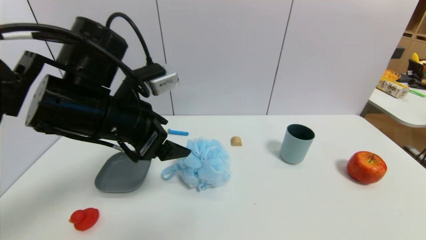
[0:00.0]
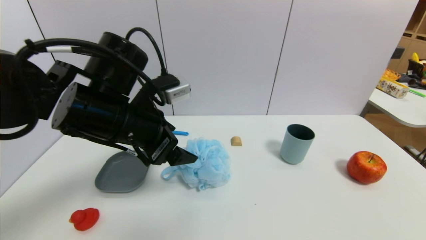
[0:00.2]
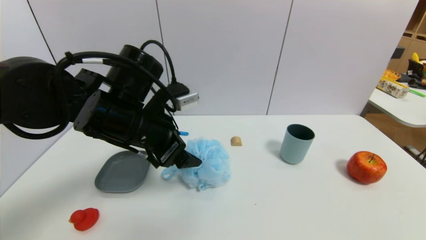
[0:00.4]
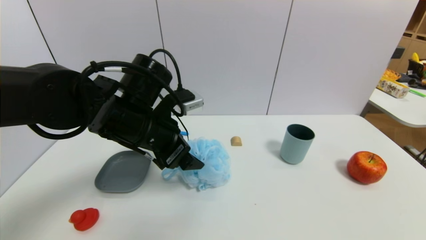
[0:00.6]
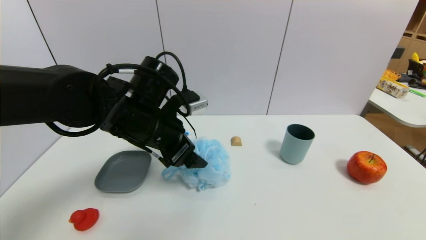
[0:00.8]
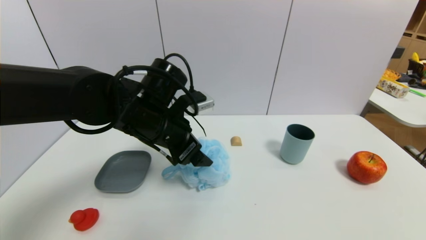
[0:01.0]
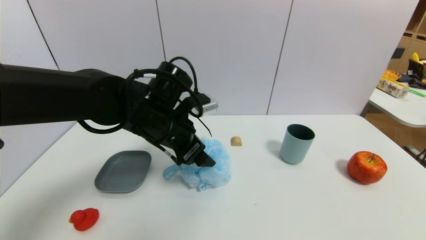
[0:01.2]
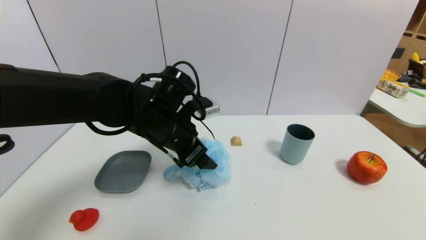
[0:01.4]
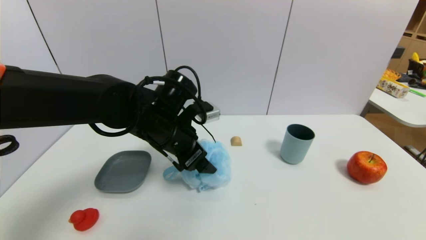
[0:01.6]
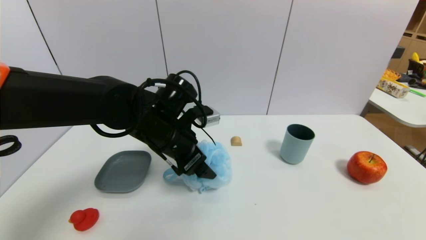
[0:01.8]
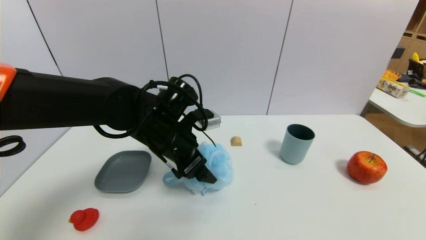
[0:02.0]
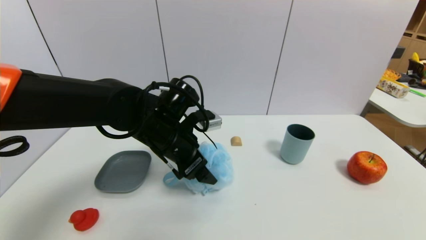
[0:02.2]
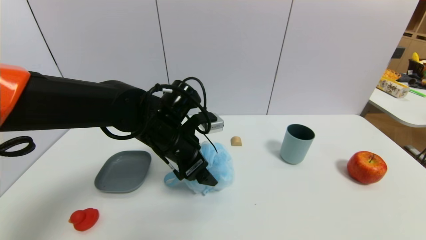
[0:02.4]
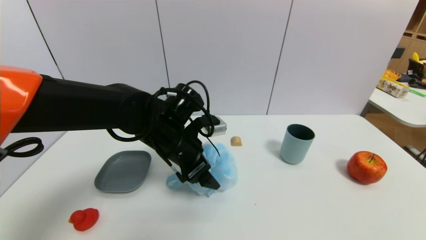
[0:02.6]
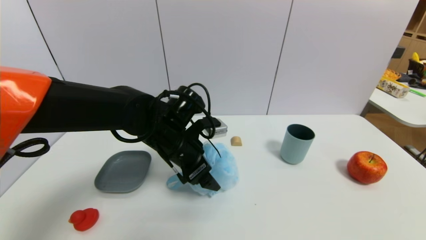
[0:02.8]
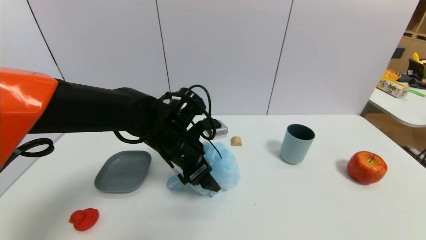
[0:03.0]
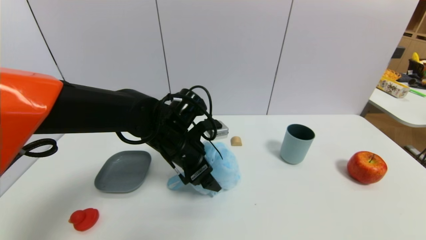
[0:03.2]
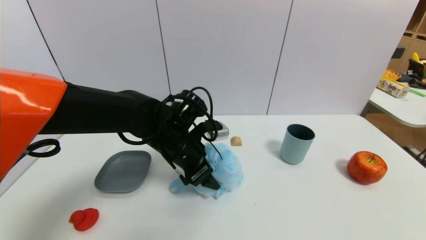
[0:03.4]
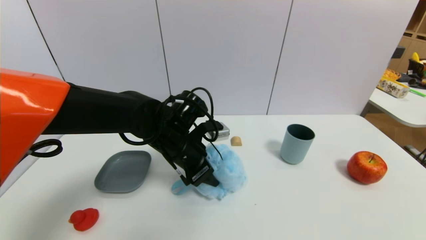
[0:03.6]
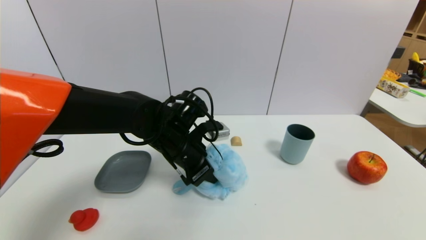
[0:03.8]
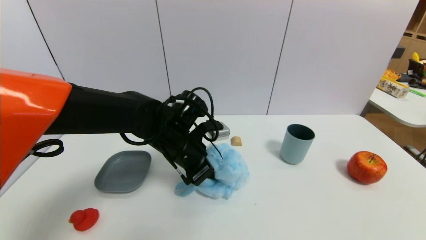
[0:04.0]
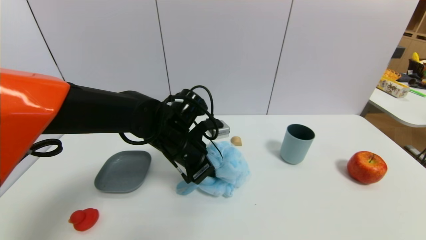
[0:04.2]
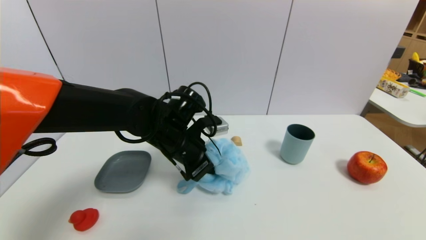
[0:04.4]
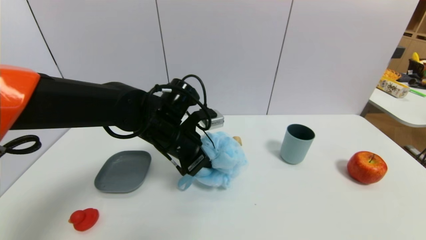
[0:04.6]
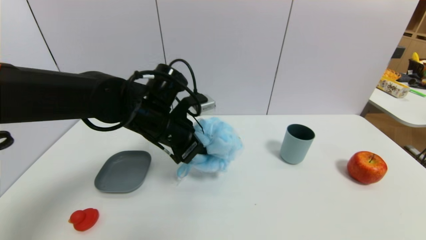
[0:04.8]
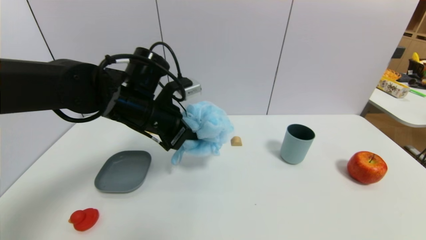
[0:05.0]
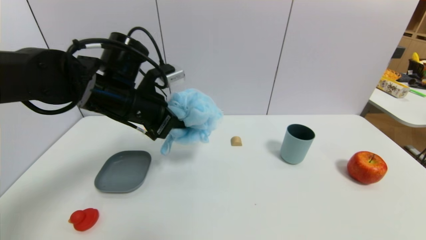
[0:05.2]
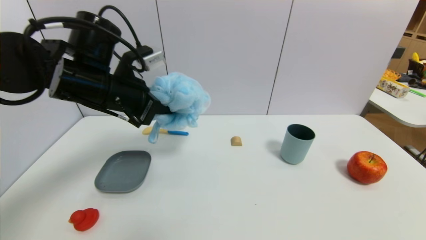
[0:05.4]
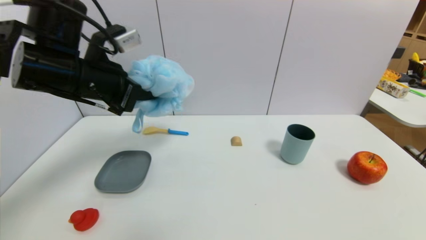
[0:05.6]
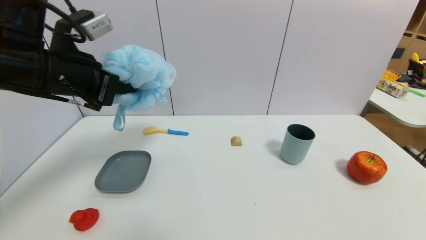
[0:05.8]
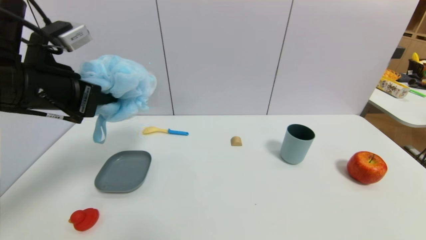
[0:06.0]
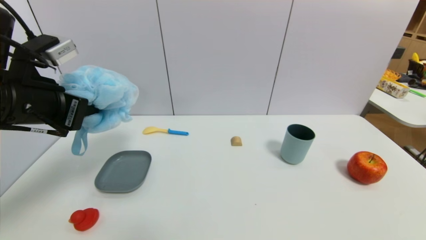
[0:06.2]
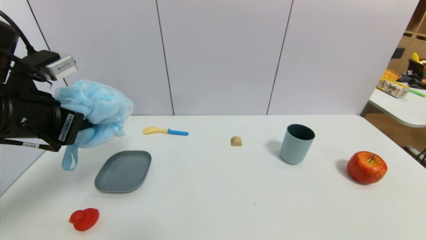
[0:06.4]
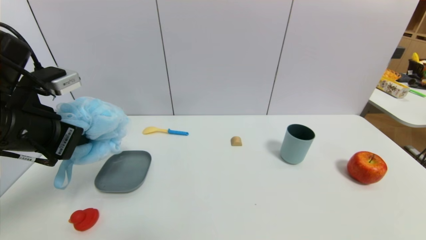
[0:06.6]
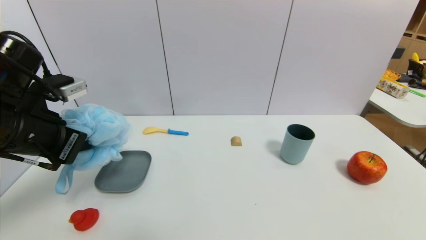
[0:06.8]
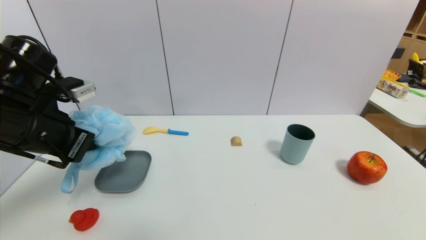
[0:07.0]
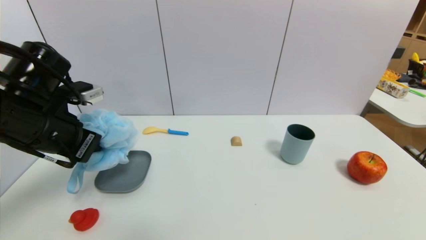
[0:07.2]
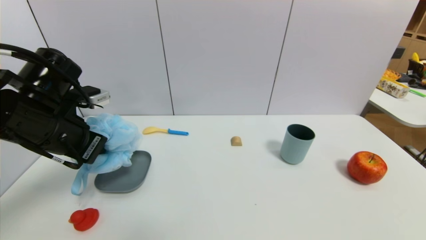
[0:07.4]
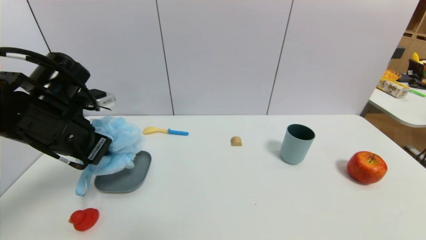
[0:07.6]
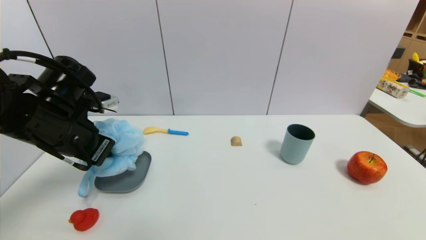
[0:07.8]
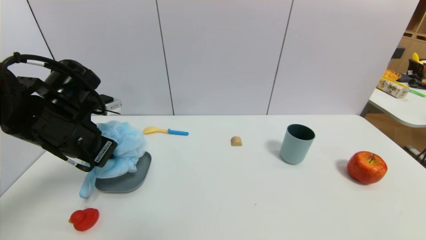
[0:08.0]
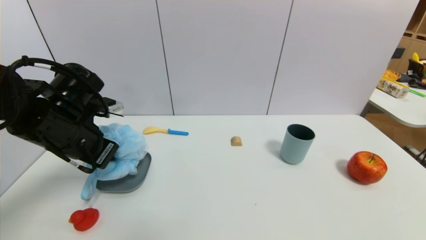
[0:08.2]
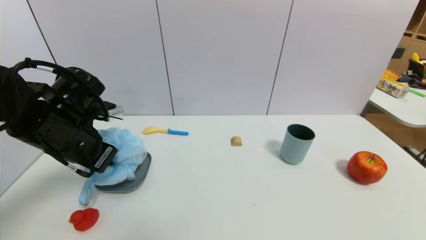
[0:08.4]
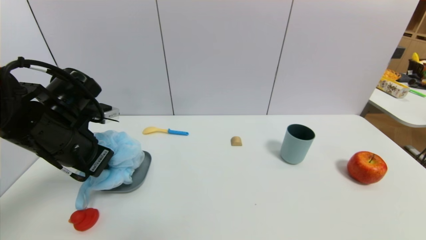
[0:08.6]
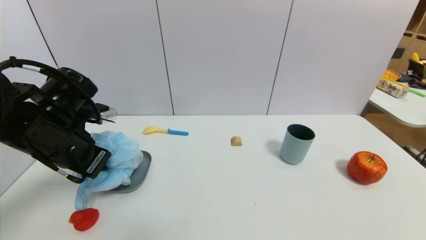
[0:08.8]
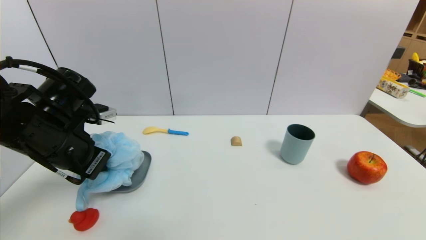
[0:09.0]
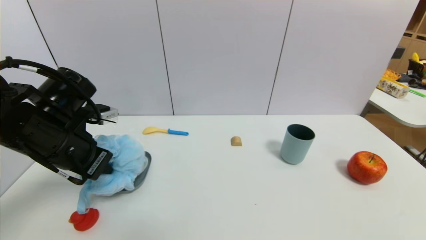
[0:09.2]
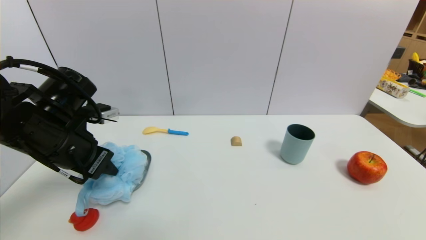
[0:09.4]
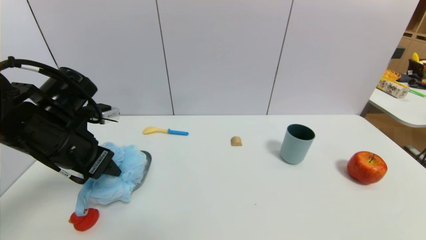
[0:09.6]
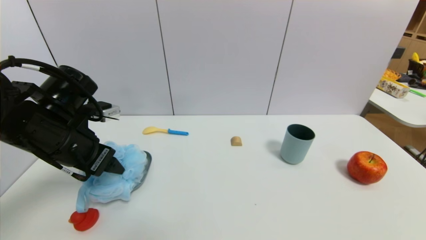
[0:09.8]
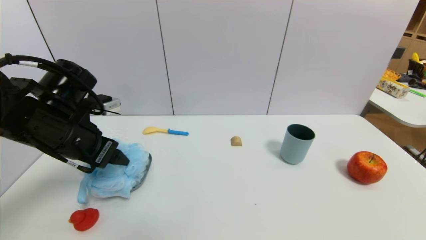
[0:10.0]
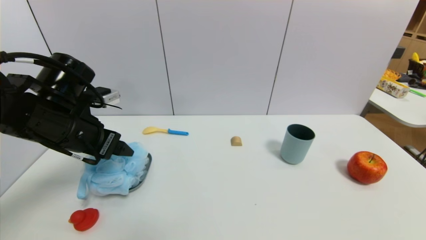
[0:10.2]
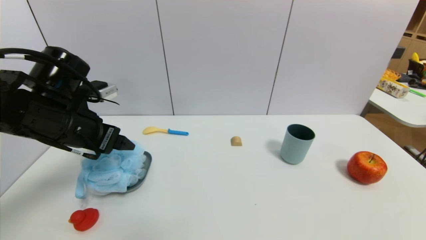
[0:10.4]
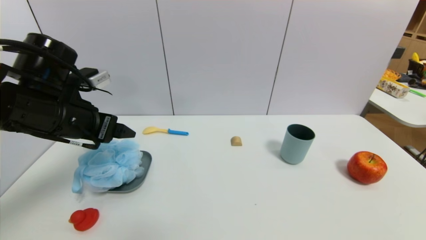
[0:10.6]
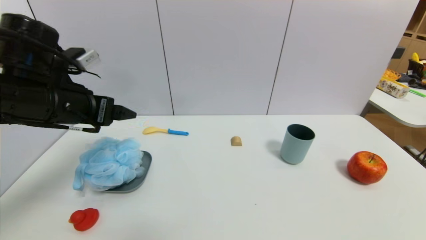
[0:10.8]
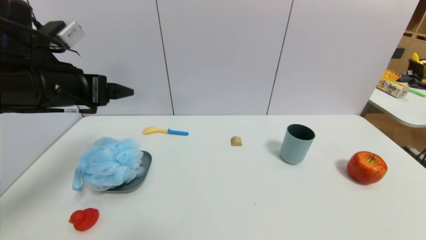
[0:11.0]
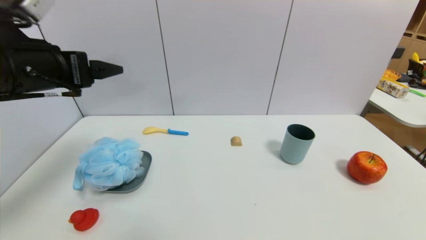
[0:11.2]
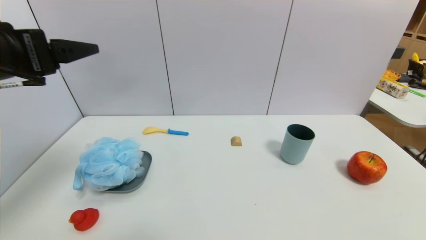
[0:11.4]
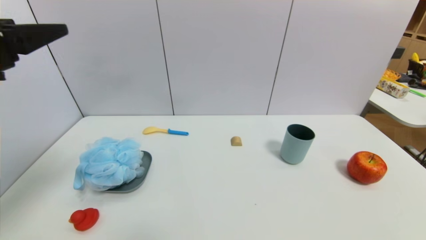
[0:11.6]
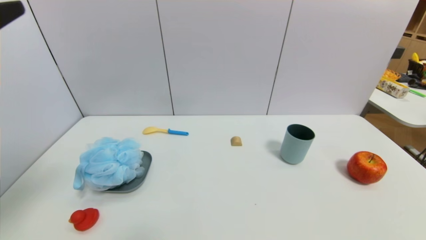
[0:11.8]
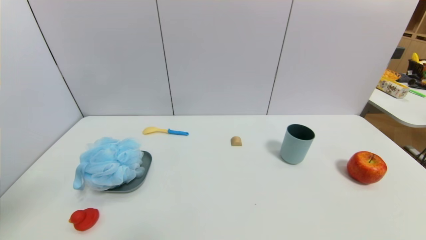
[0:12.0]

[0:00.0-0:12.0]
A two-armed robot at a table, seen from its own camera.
Task of the whole recording: use a gripper to pick the target object and place on the dish.
Step, 0:00.0 to 0:03.6: Grasp the shower sphere with the left gripper.
Step, 0:03.8 to 0:11.0: Place the shower sphere on the dish with the left gripper.
0:00.0 to 0:01.6: The left gripper goes roughly 10 cm downward, forward and to the right.
0:01.6 to 0:03.0: The grippers move only a little.
0:03.0 to 0:04.4: The left gripper closes.
0:04.4 to 0:06.0: The left gripper heads to the left, upward and backward, covering about 25 cm.
0:06.0 to 0:07.6: The left gripper is displaced downward by some 5 cm.
0:07.6 to 0:09.0: There are only small adjustments of the grippers.
0:09.0 to 0:10.4: The left gripper opens up.
0:10.4 to 0:12.0: The left gripper goes some 20 cm backward and upward.

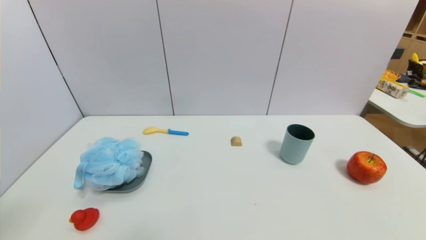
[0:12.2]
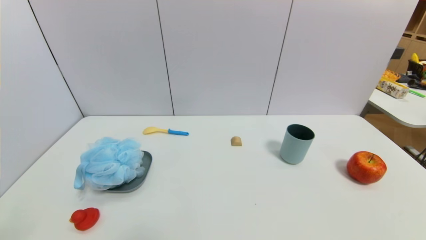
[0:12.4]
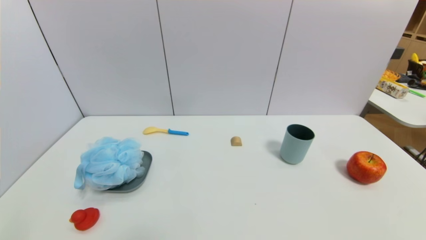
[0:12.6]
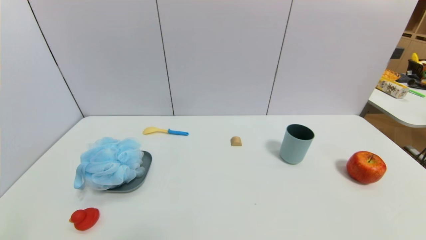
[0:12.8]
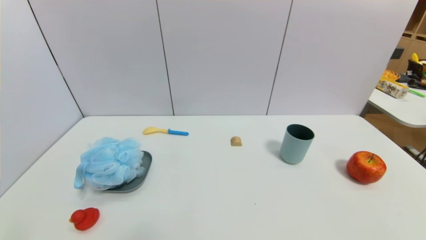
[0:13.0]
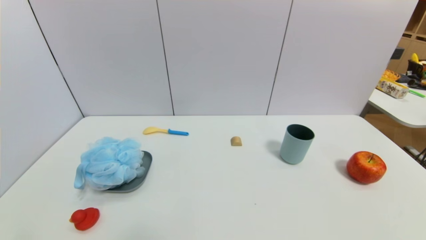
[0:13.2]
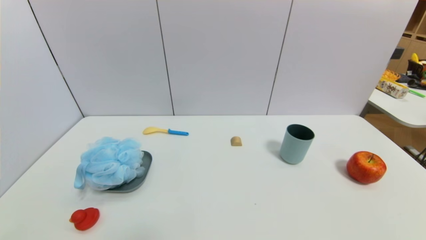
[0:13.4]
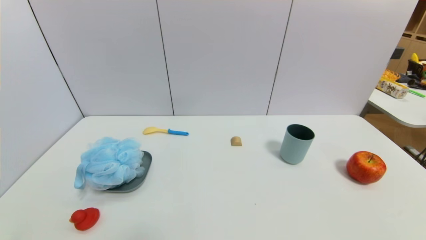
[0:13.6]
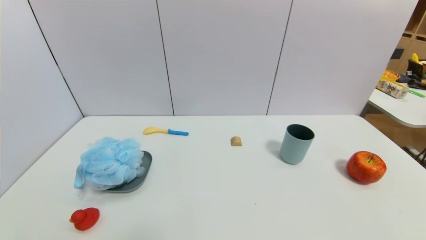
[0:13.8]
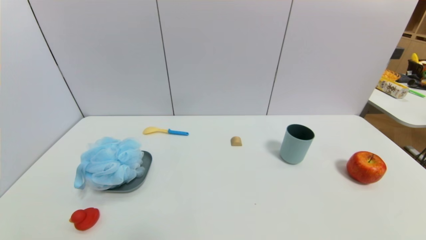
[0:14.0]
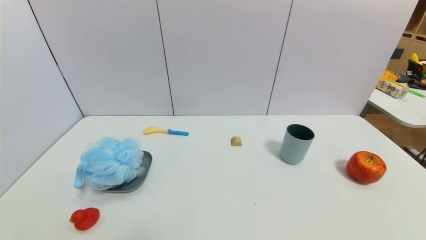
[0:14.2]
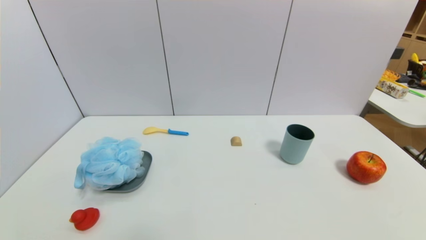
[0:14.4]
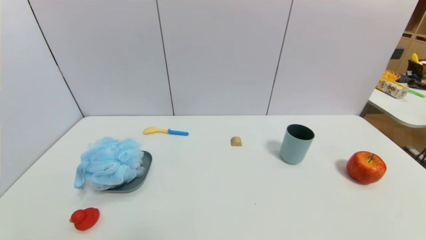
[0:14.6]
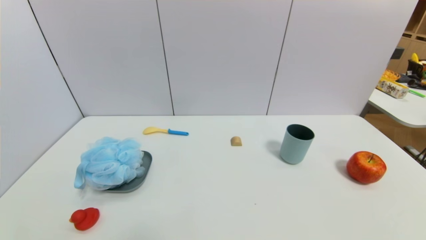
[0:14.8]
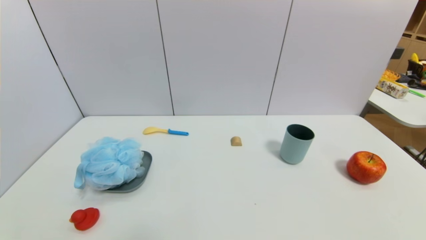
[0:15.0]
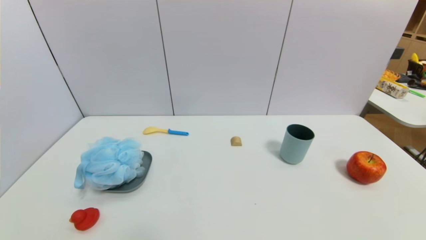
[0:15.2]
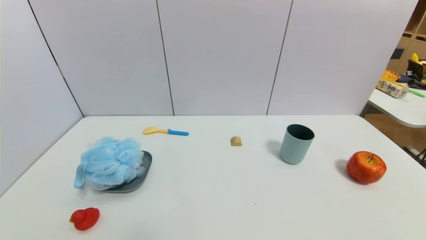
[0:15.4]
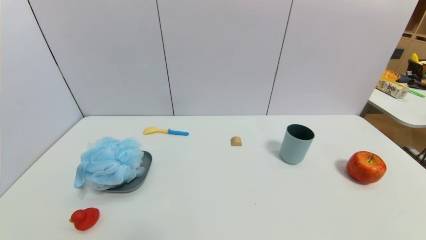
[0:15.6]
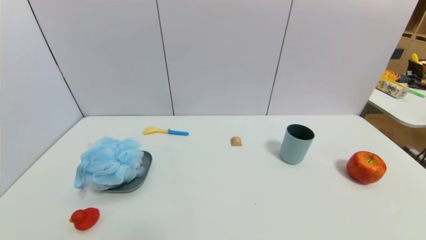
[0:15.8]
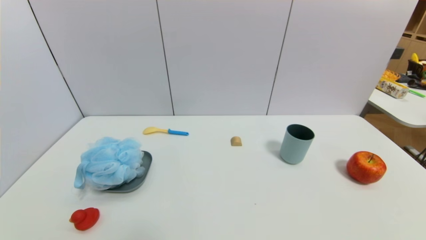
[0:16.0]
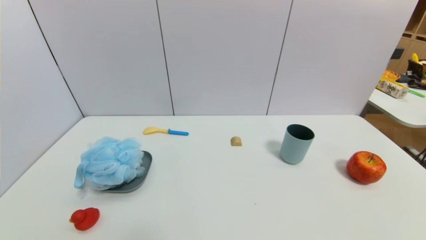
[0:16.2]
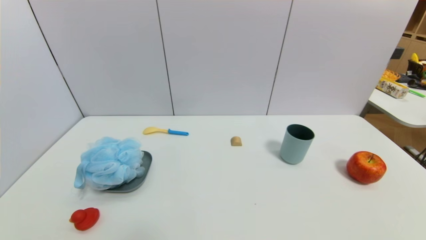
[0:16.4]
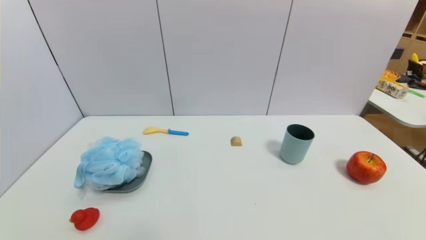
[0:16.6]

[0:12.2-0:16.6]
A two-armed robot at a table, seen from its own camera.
Task of the whole recording: use a gripper to pick the target object and place on the dish.
0:15.2 to 0:16.6: Both grippers stay about where they are.
